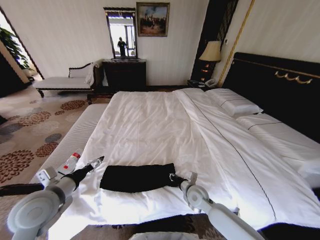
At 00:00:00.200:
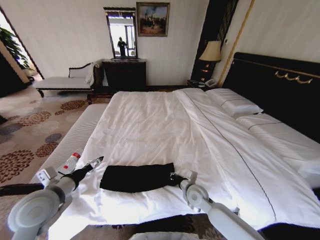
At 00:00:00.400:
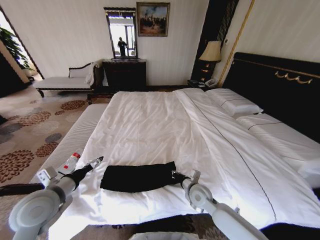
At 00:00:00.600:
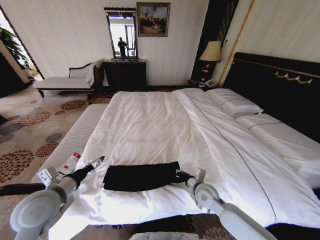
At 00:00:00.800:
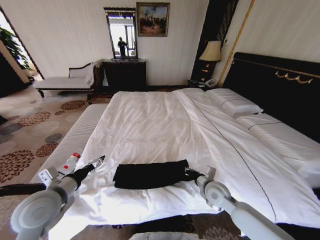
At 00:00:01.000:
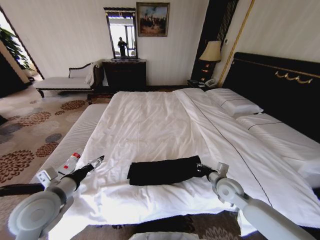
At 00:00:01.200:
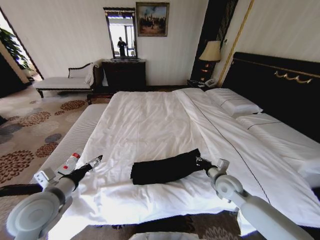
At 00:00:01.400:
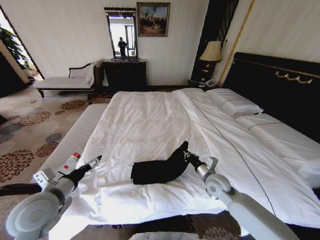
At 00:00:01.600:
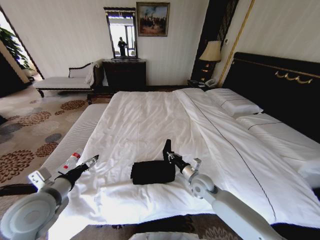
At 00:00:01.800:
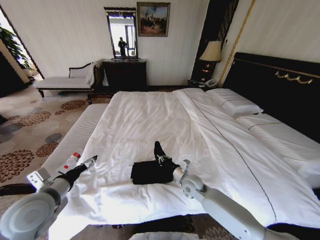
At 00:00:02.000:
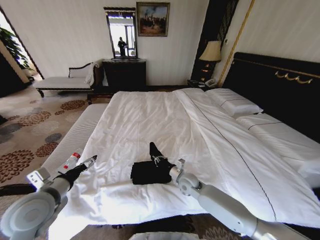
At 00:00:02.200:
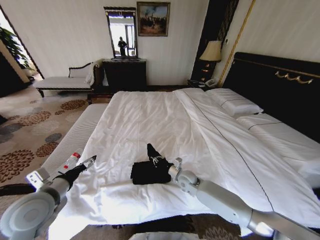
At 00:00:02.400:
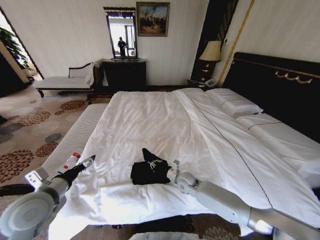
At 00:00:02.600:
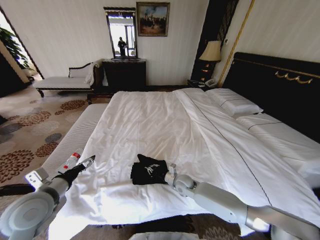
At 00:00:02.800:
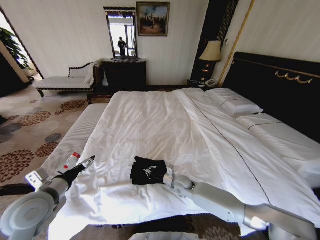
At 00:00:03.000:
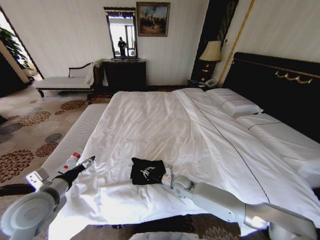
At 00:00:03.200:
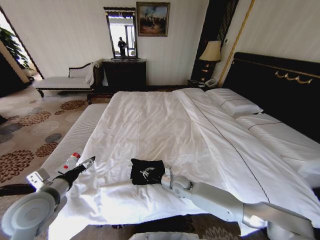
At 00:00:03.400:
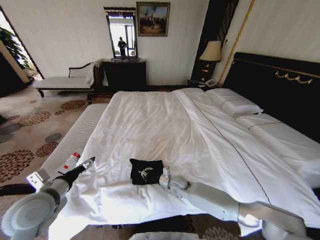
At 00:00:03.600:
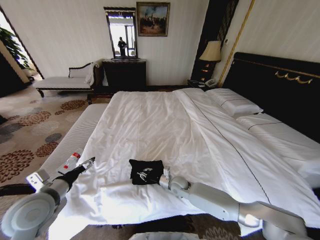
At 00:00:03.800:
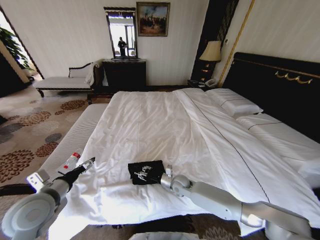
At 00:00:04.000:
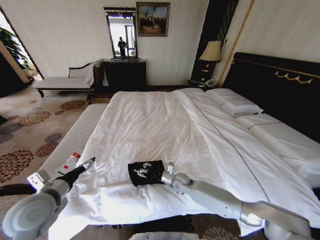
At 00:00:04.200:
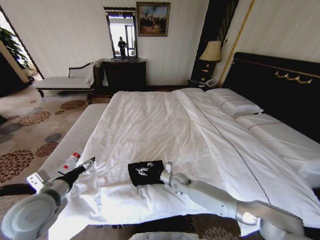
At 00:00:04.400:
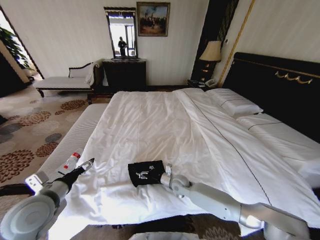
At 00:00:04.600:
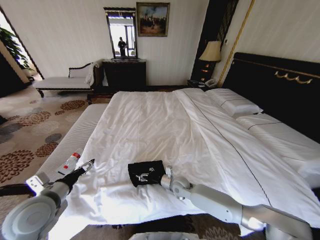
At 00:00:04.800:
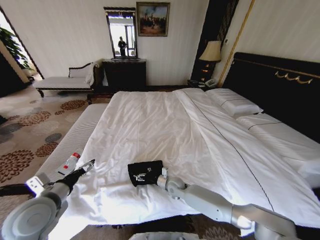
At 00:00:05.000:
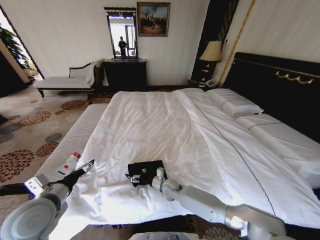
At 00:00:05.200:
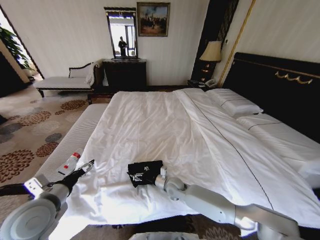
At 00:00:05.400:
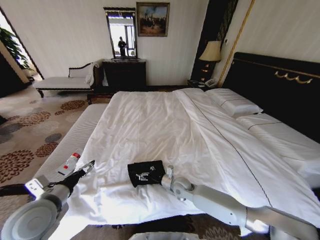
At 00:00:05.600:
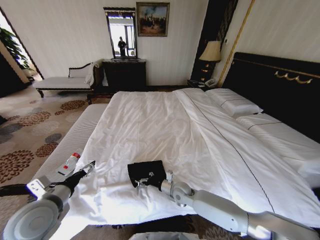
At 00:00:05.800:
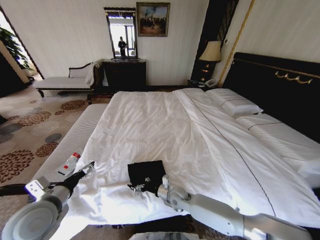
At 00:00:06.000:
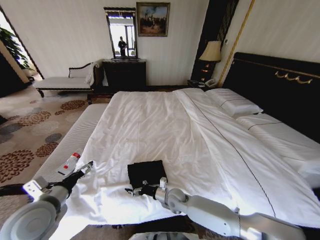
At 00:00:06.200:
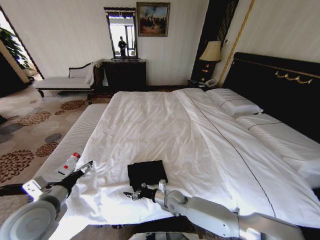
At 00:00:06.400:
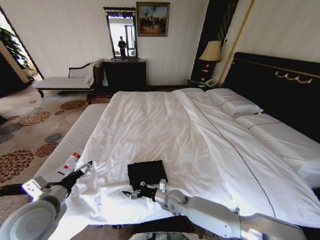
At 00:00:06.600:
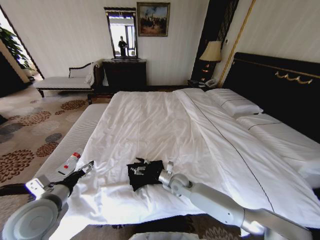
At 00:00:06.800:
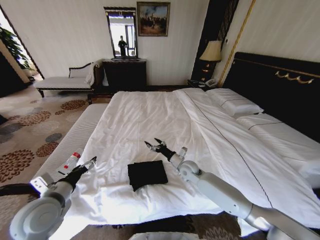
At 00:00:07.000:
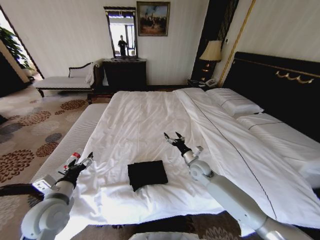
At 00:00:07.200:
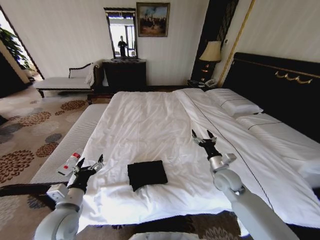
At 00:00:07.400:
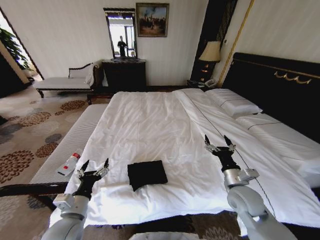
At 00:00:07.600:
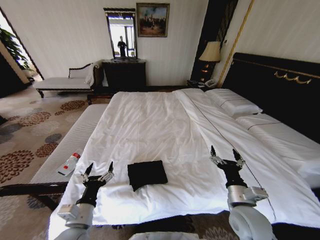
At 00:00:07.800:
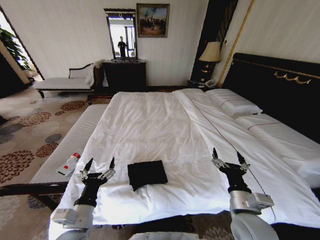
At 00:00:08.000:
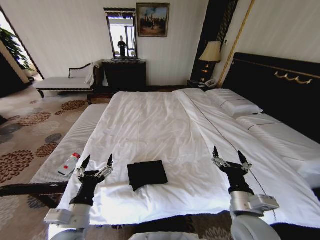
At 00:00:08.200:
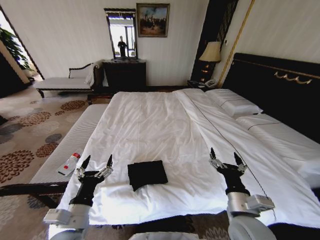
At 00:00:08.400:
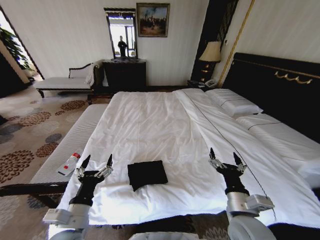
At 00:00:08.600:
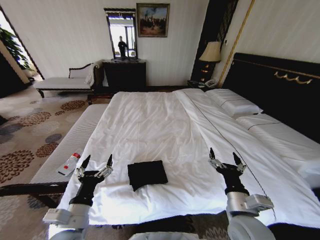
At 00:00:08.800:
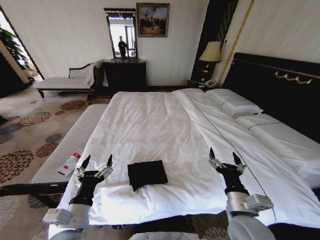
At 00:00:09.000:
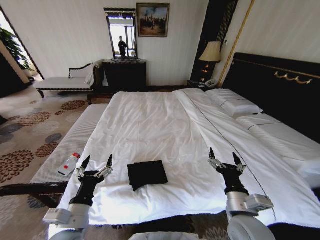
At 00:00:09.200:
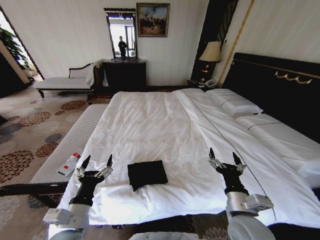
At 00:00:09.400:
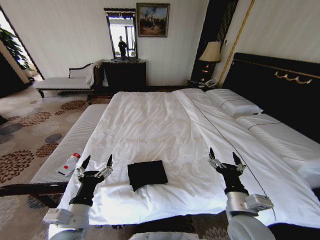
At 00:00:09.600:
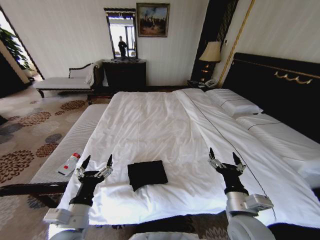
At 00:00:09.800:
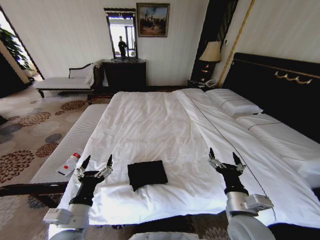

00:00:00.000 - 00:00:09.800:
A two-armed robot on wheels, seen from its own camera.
Task of the whole recording: Fold the clothes on the bed.
00:00:00.000 - 00:00:01.400: The right gripper is displaced to the right and upward by roughly 10 cm.
00:00:01.400 - 00:00:02.800: The right gripper is displaced to the left and downward by approximately 15 cm.
00:00:02.800 - 00:00:04.200: The right gripper opens up.
00:00:04.200 - 00:00:05.600: The right gripper travels backward by approximately 5 cm.
00:00:05.600 - 00:00:07.000: The left gripper shifts by roughly 5 cm. The right gripper goes about 15 cm to the right, upward and forward.
00:00:07.000 - 00:00:08.400: The left gripper heads to the right and backward, covering some 10 cm; the right gripper moves backward, some 25 cm.
00:00:08.400 - 00:00:09.800: The two grippers keep their place.
